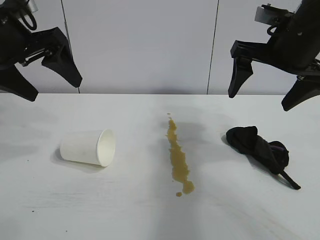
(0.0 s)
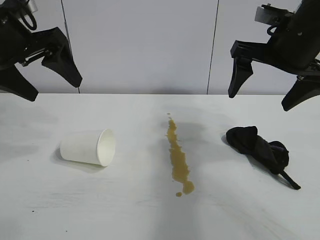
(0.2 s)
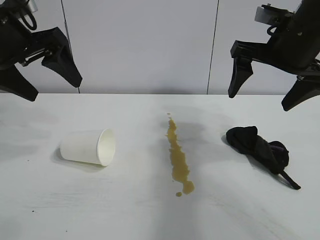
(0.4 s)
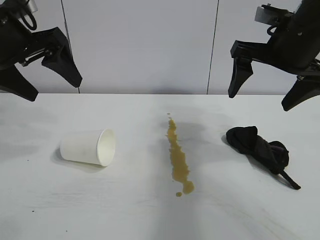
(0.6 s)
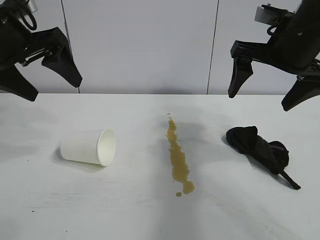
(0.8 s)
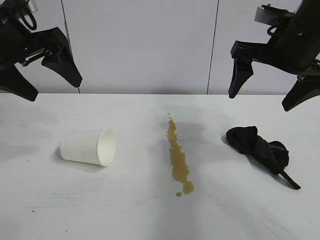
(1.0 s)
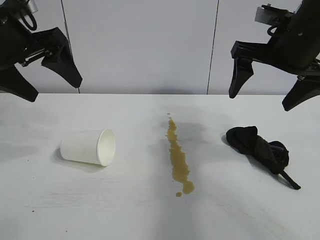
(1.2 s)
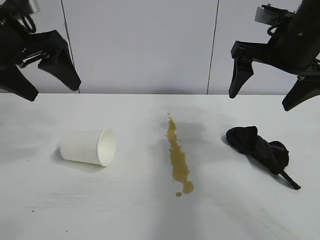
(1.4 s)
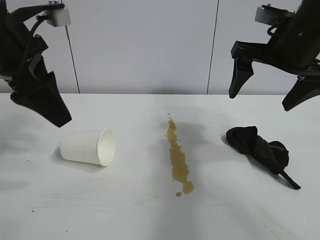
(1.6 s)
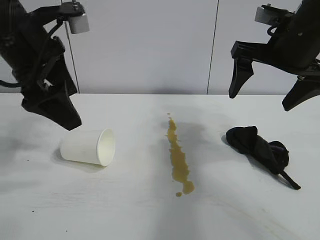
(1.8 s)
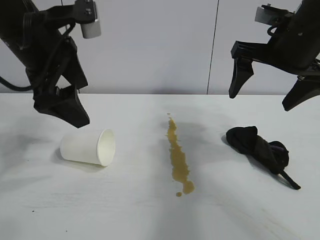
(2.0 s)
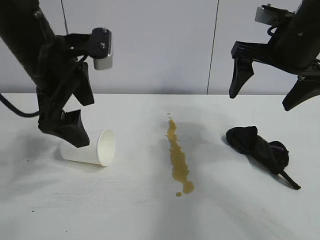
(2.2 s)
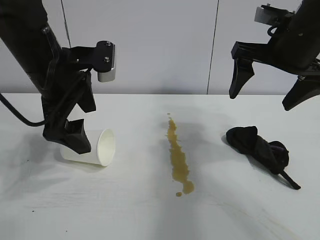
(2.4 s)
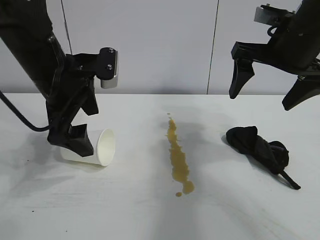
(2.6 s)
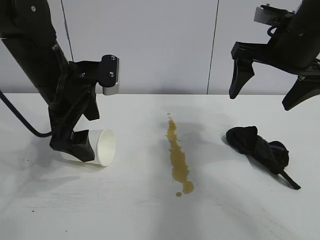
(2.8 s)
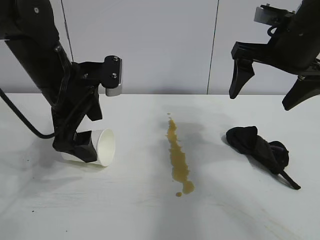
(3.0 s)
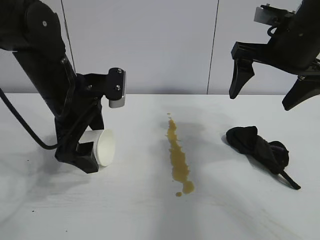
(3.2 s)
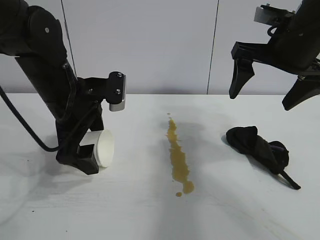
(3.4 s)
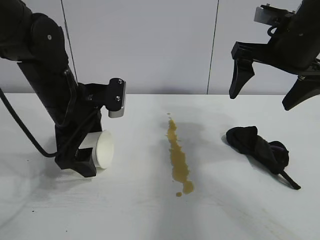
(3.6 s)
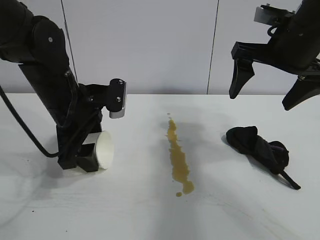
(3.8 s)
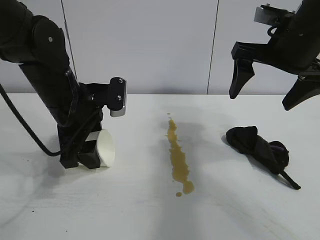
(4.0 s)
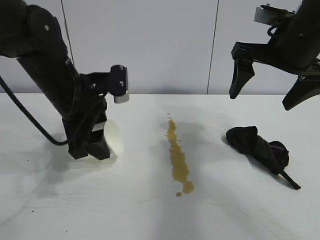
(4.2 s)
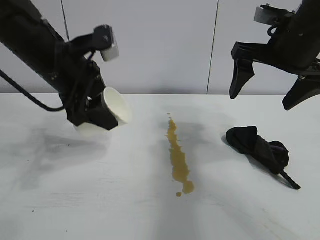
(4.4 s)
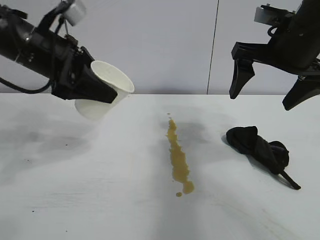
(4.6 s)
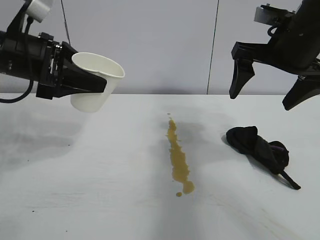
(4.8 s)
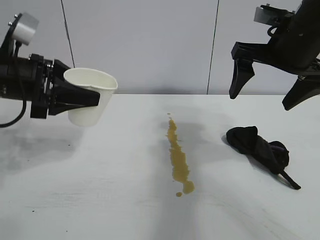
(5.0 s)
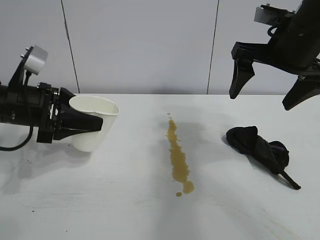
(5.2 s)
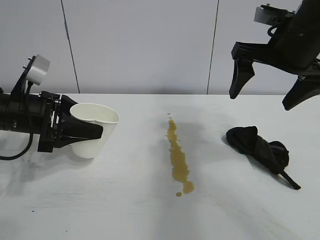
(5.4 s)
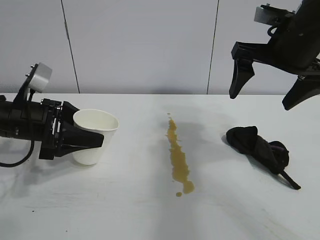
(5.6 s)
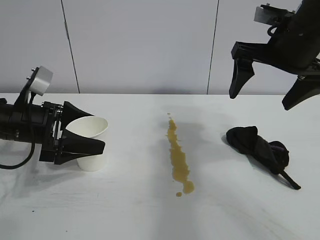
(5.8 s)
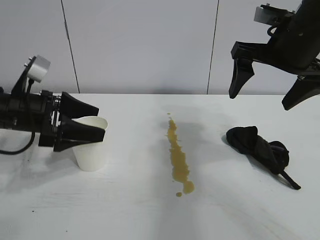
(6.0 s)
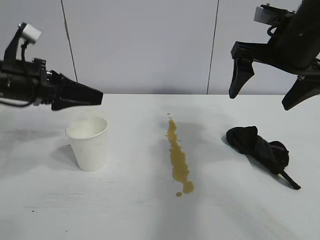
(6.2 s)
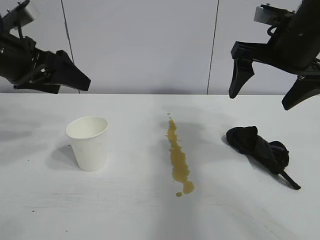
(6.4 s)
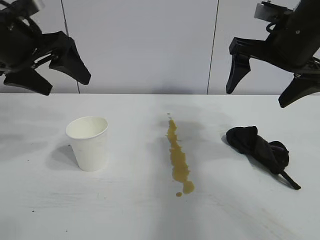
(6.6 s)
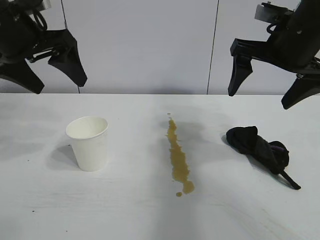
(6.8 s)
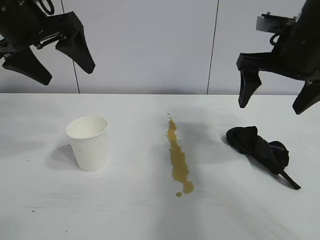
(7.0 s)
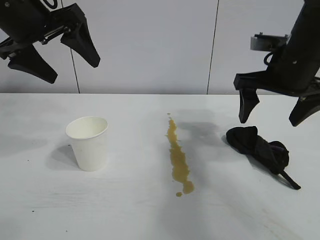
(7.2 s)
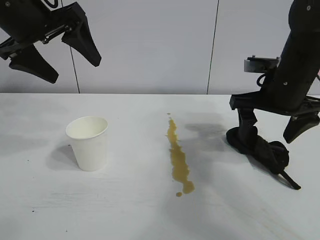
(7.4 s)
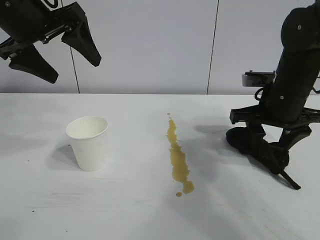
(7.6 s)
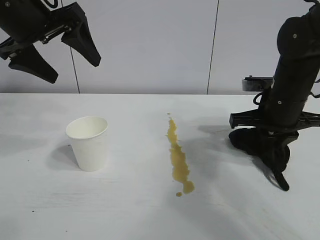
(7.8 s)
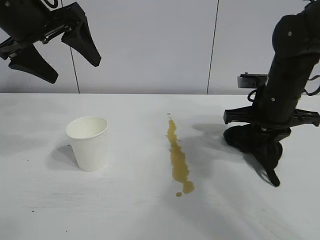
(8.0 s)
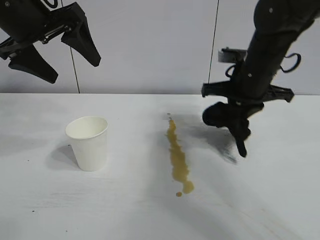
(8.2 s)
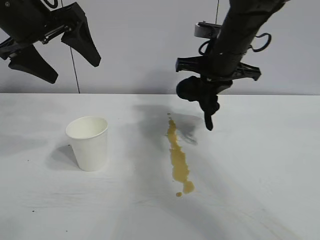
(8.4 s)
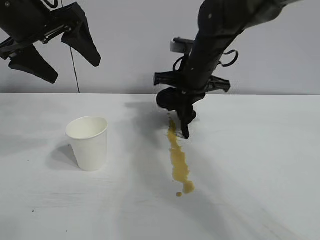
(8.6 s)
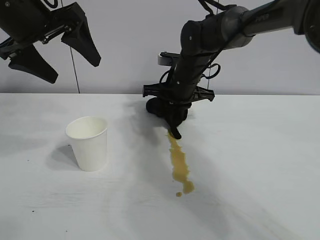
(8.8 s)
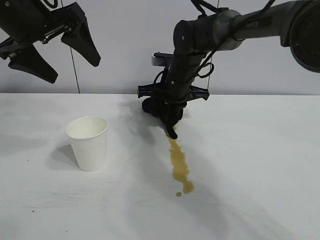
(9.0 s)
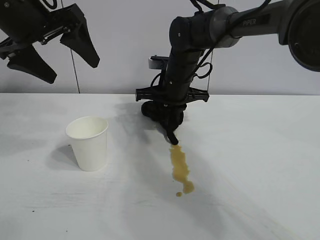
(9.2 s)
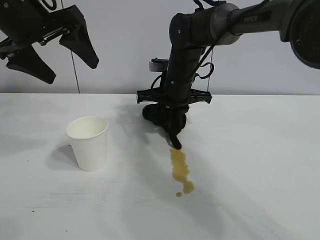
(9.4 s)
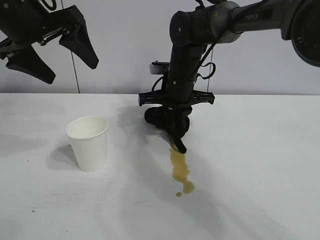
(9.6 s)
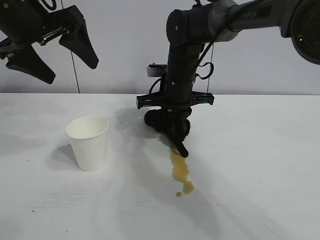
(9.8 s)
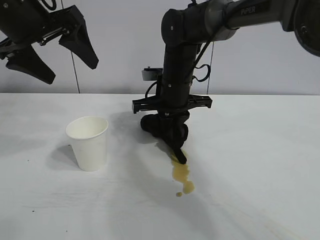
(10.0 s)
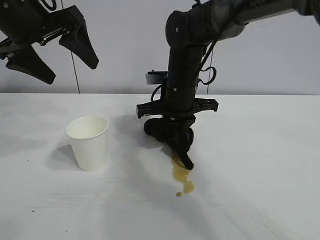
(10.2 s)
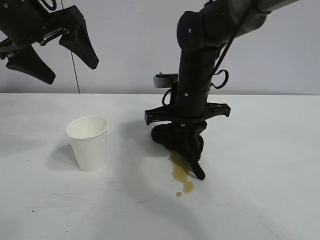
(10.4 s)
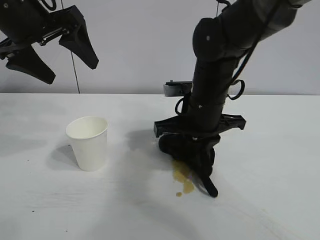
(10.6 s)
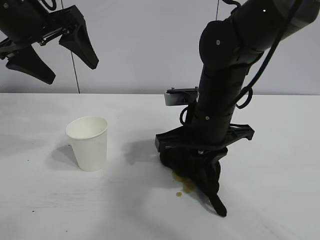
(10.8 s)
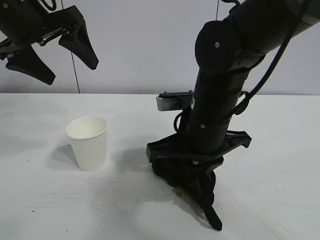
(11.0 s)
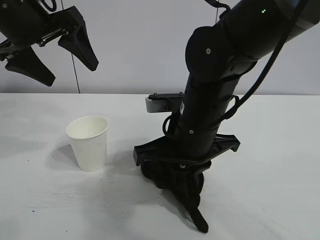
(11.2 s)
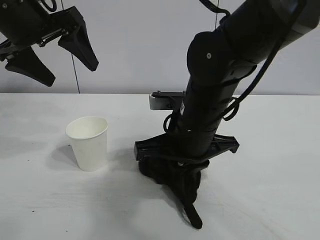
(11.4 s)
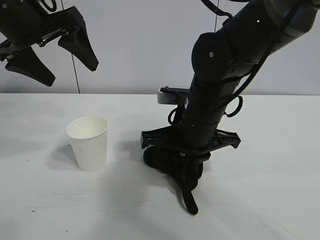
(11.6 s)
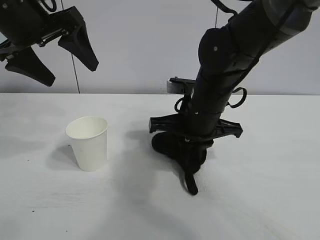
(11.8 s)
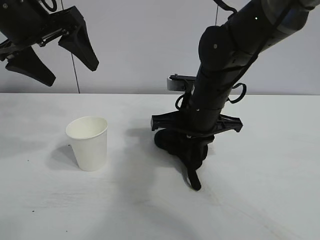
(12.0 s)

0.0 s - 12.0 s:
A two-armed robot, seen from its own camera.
Task of the whole recording: the left gripper pick up the fallen cup and place it upright, the right gripper grasp the black rag and wipe the stain on the table, the right gripper put the black rag back in its original position.
Step, 1.4 s - 3.6 s: Grasp the paper cup with left gripper.
Step, 4.0 s - 5.6 s: Stand the paper cup upright with left gripper.
Step, 5.8 s - 7.8 s: Grasp the rag with right gripper.
